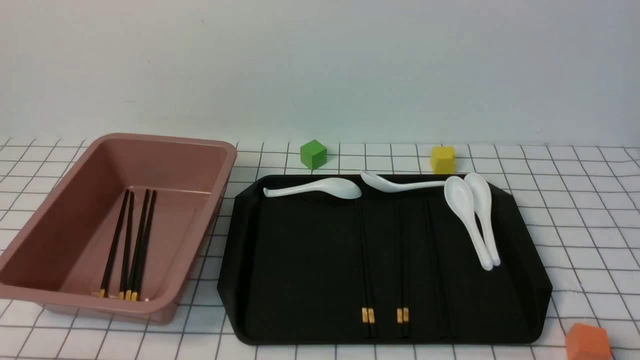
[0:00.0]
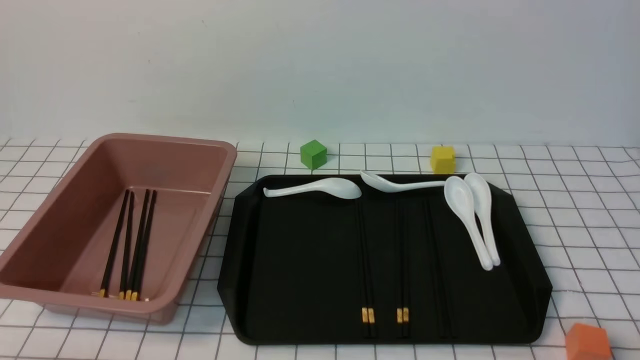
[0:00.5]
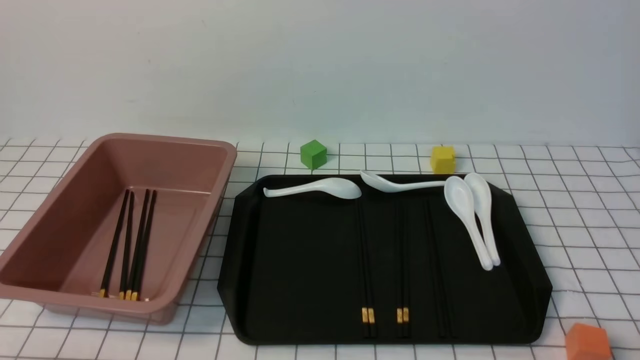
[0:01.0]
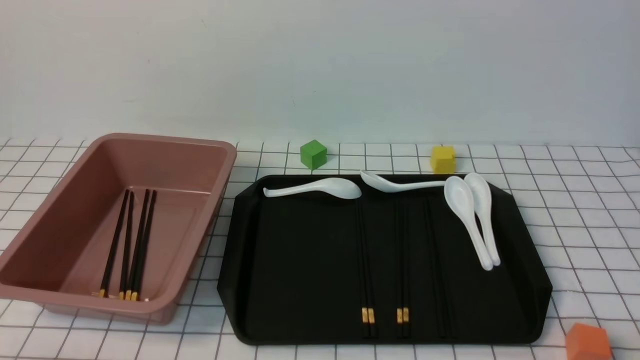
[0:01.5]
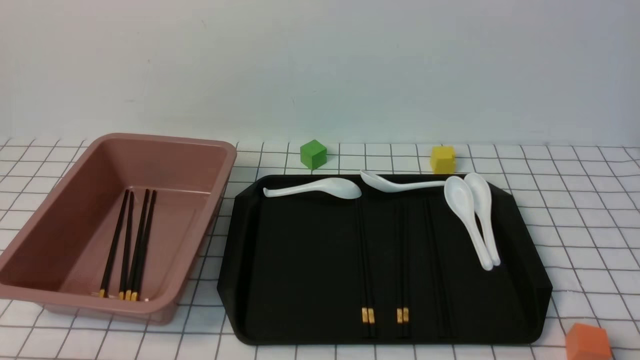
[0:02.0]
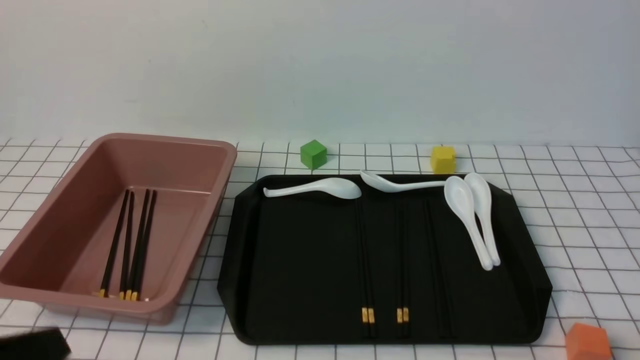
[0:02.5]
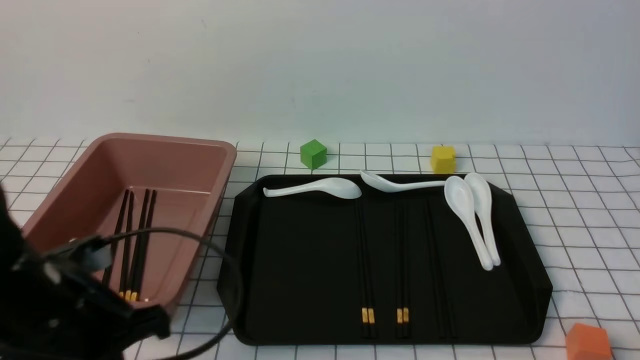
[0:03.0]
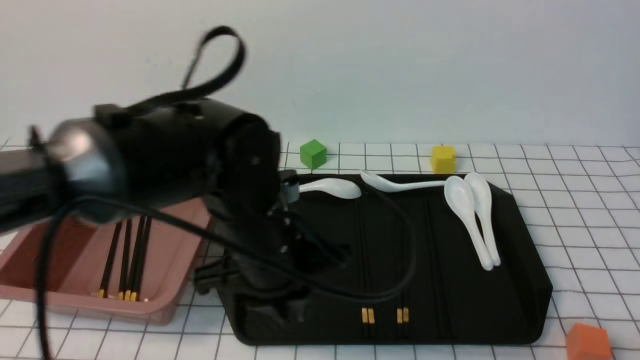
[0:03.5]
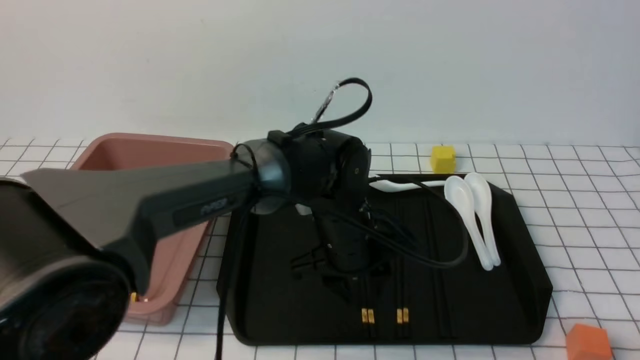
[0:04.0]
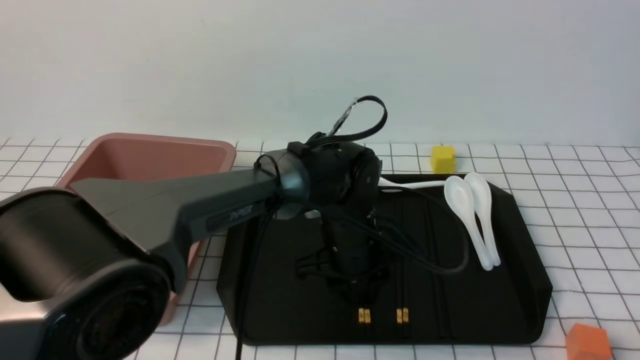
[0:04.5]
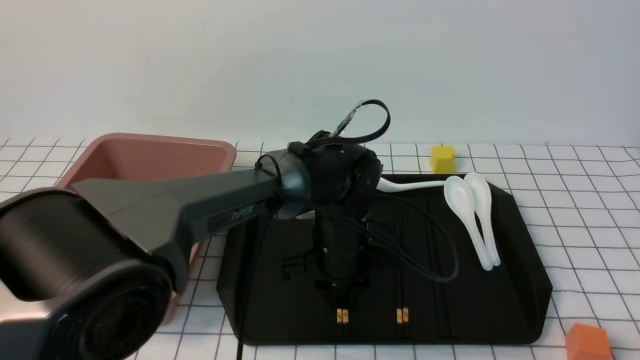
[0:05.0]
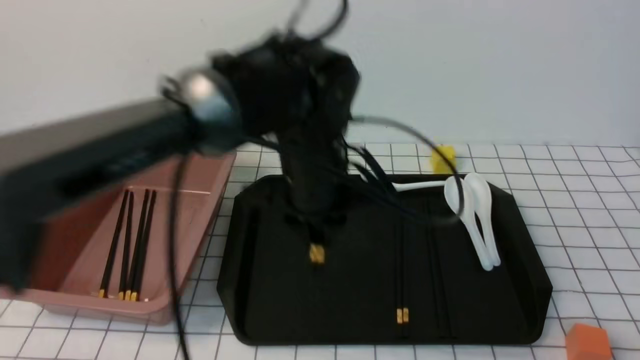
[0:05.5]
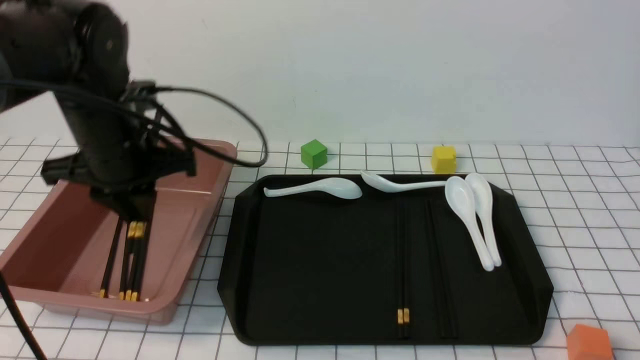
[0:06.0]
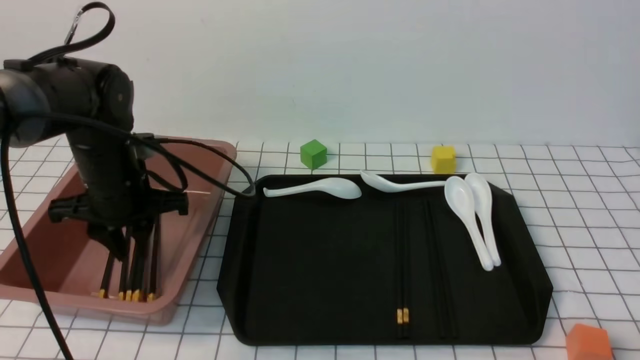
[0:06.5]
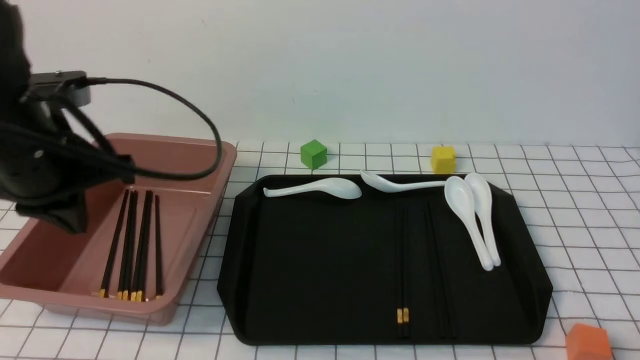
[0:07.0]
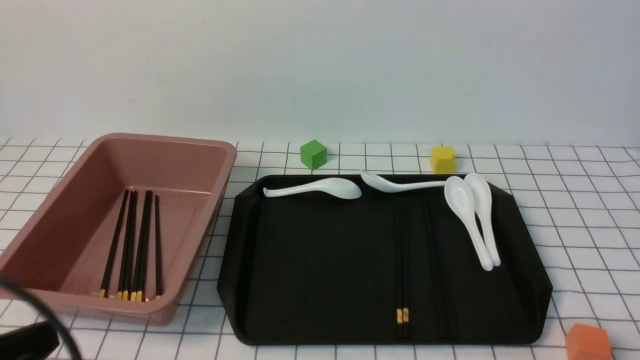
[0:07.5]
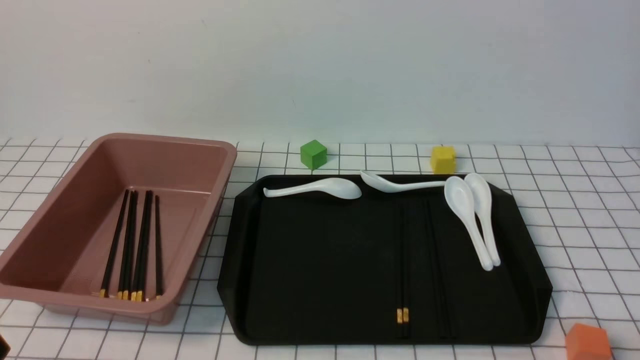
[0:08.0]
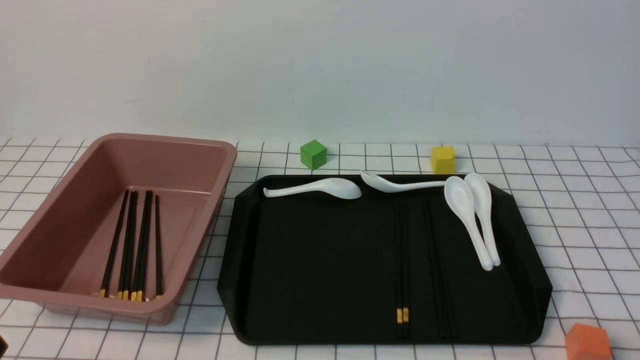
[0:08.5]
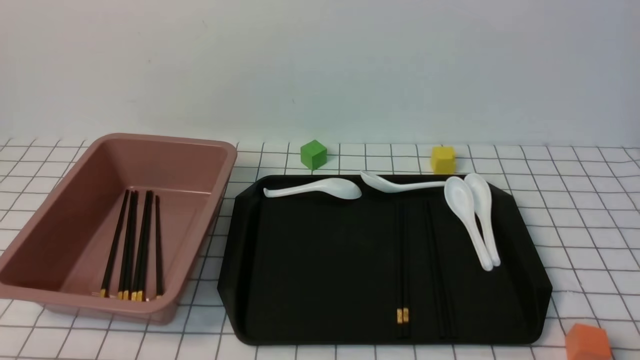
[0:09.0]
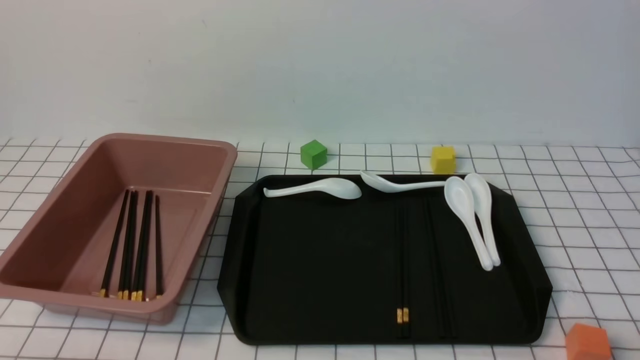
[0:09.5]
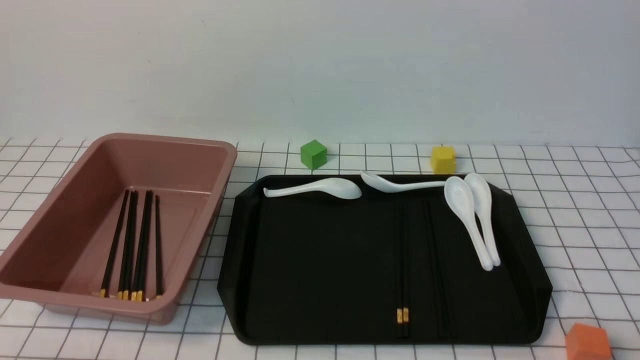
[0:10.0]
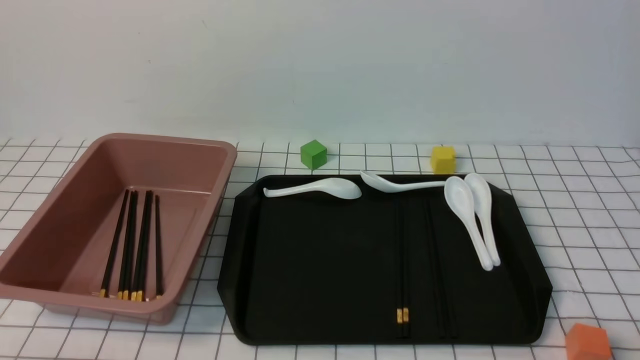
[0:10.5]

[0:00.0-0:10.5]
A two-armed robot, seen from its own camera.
Step, 0:00.0 to 0:05.5: use the left arm to grab a pair of chopsticks.
Step, 0:06.0 to 0:06.5: use the left arm to put the chopsticks into the lunch box.
0:02.0 to 0:04.0: The left gripper is displaced forward and to the right by some 40 cm, and opens up.
0:04.0 to 0:06.5: The left gripper shifts some 25 cm to the left, and closes up.
0:06.5 to 0:08.5: The left gripper goes some 35 cm backward, and closes.
